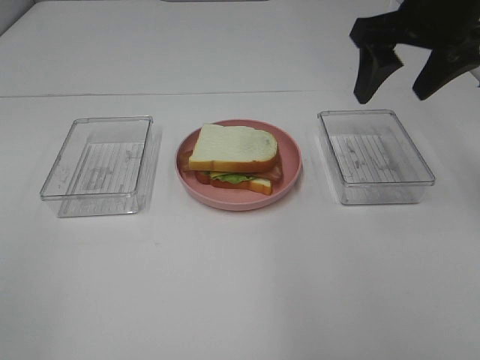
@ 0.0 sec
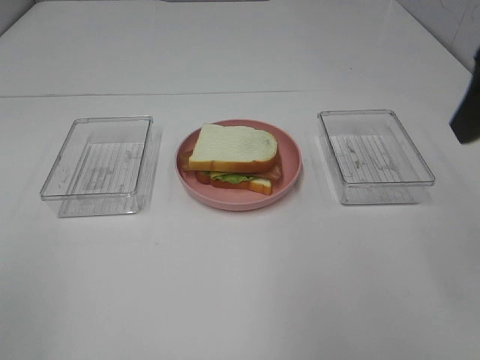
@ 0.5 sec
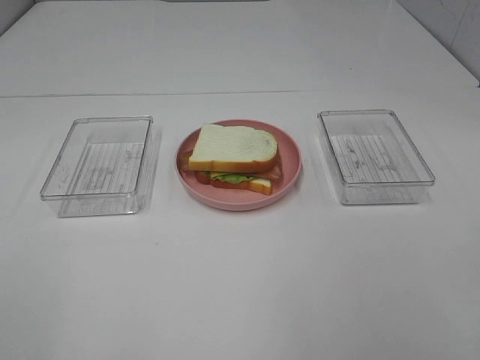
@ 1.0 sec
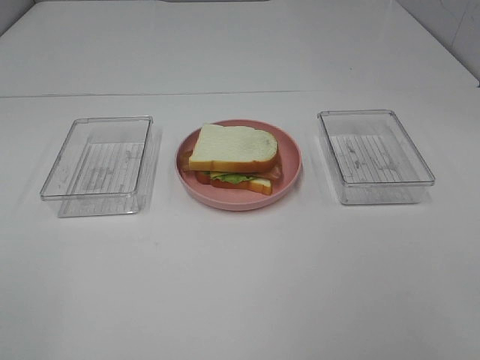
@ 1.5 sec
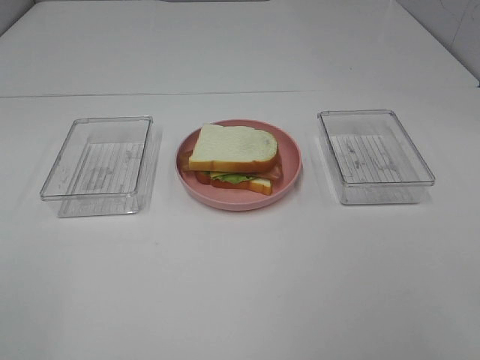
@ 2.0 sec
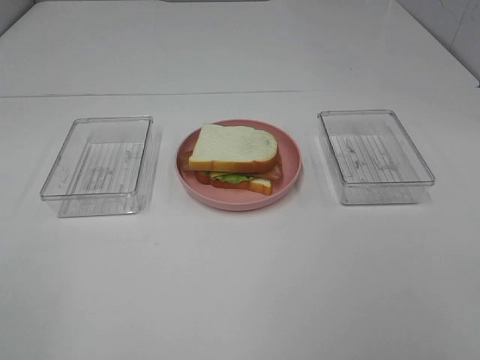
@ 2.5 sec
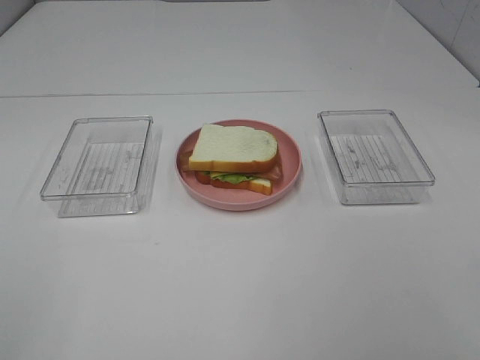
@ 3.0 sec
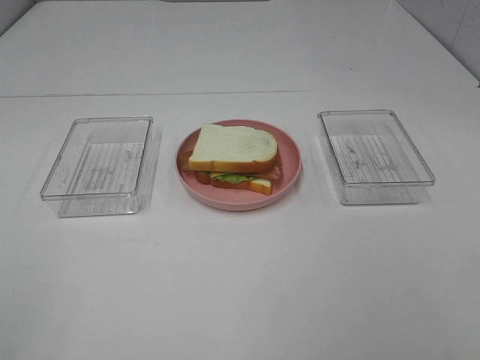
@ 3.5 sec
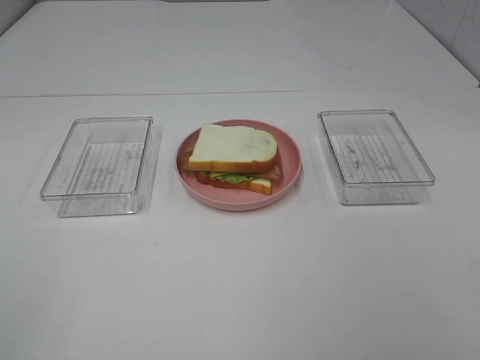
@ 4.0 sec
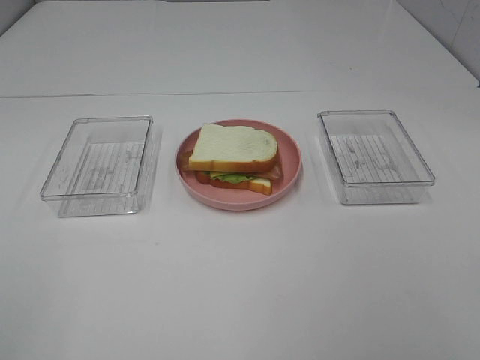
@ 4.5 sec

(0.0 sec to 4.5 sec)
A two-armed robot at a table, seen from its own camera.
Task of the whole recording: Make sandwiches.
0.0 sec - 2.0 sec: The right gripper travels backward by some 35 cm.
